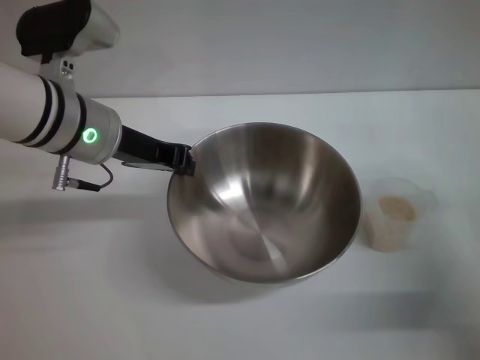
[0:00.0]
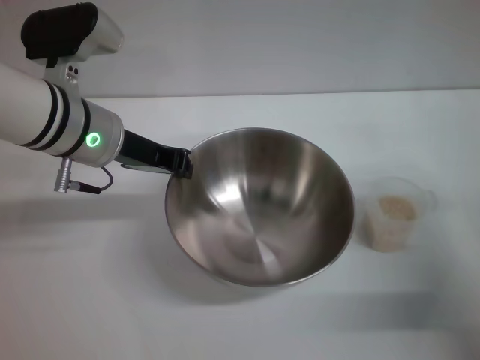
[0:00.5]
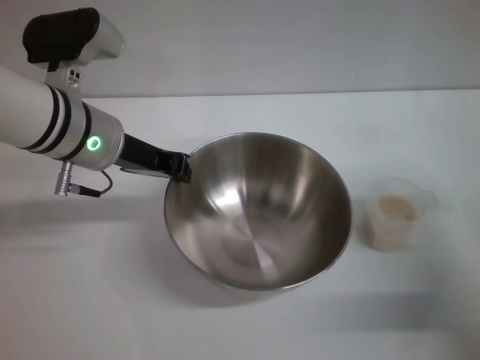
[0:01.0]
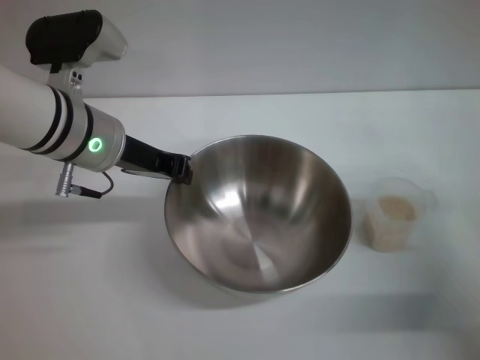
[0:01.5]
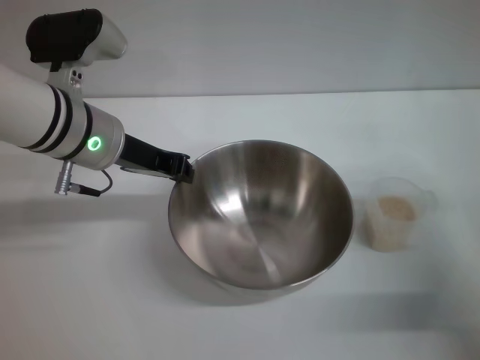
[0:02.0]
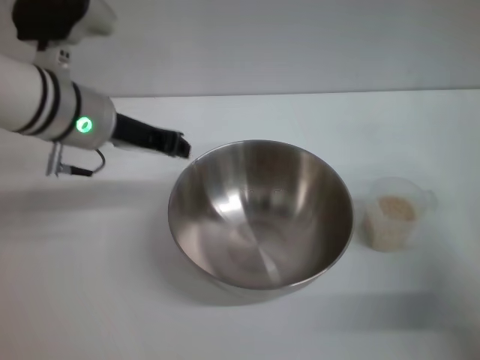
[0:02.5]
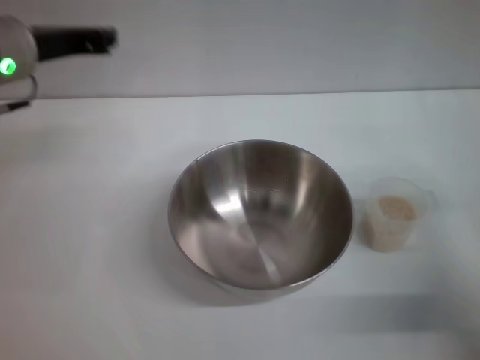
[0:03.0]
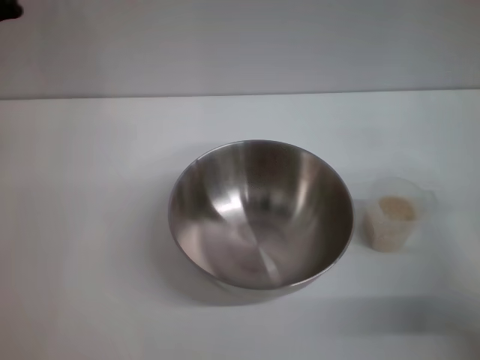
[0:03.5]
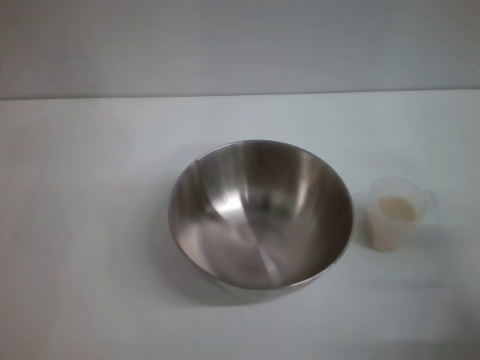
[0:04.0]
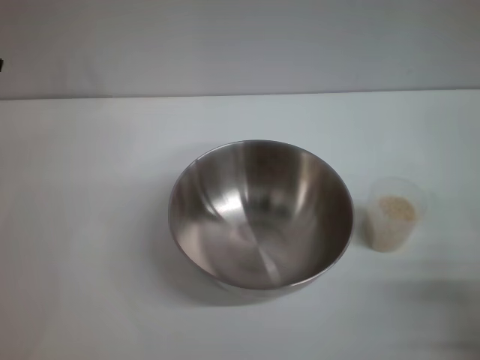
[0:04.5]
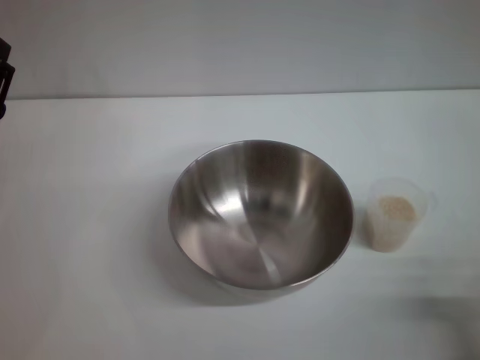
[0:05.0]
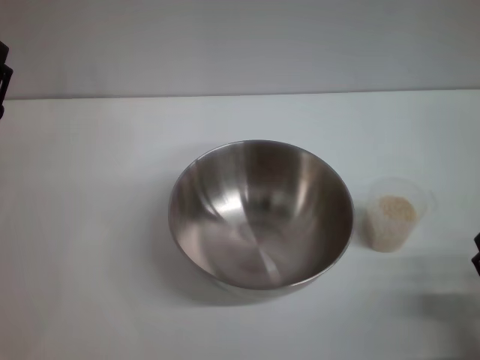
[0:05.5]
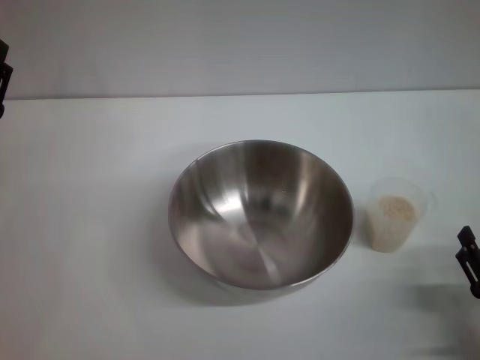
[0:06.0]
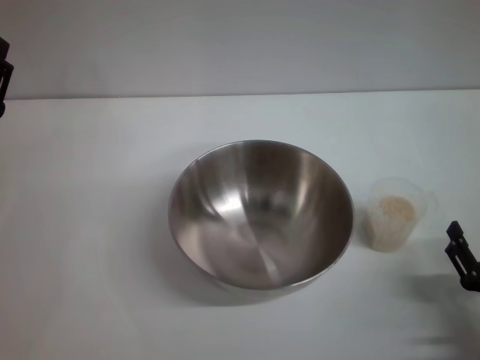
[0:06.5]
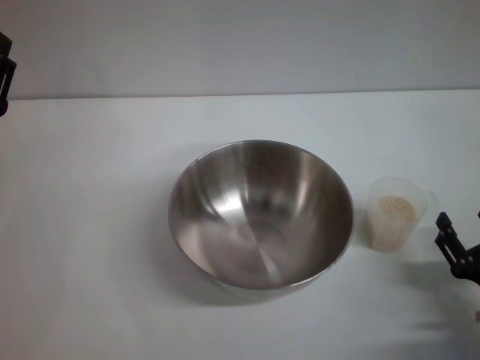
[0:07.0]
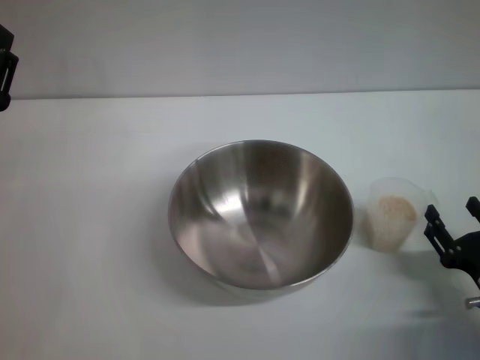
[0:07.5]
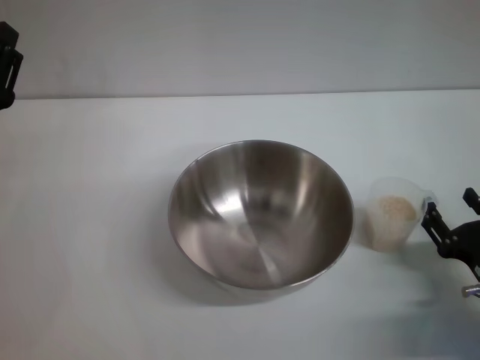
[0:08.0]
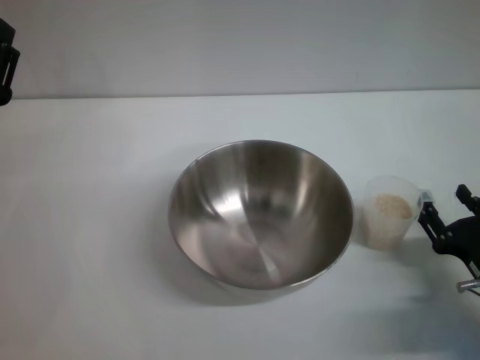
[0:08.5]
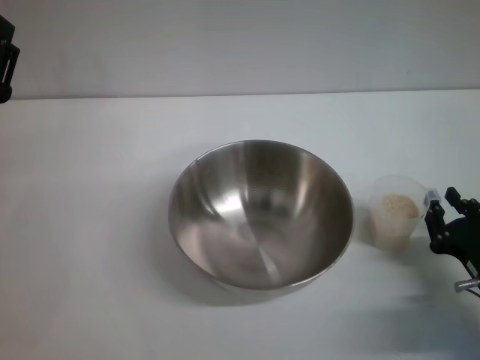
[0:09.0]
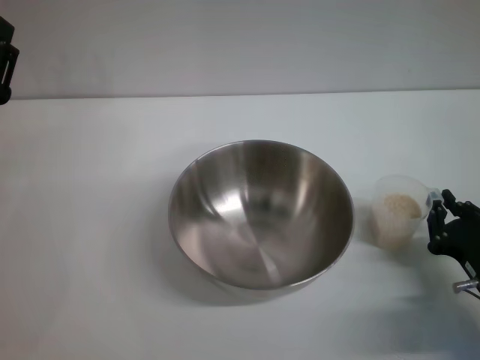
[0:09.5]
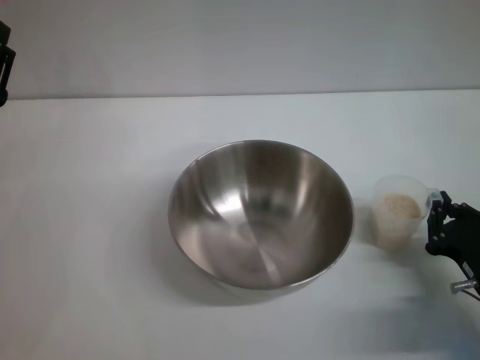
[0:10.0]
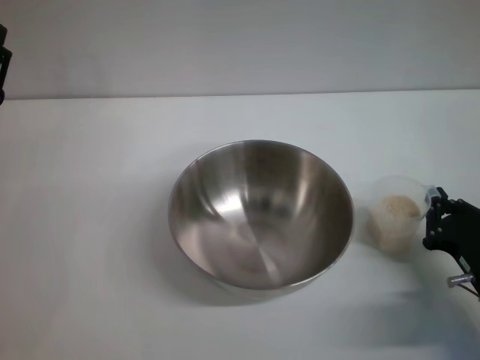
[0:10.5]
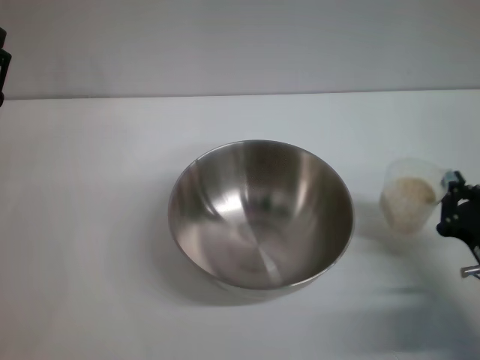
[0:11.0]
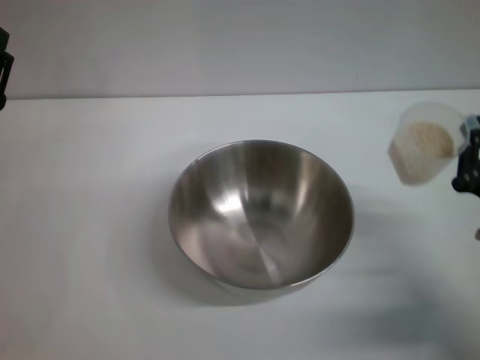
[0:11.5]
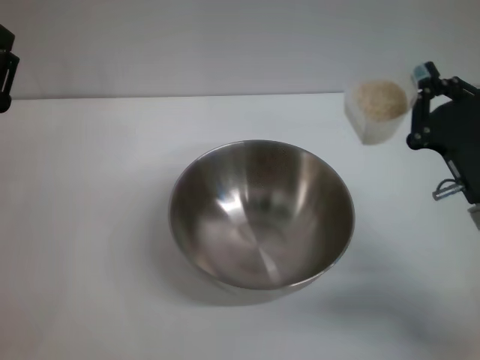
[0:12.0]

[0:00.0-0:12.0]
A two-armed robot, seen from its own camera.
Task of the whole recording: Place the bowl in the middle of the table with one hand and pour the rice from the grain cup into it with the other hand.
Step, 0:00.0 to 0:02.5: Place the bowl in the center of view with the left gripper.
Step, 0:03.0 to 0:11.5: Pick up the cup with rice in it with the right gripper.
0:00.0 to 0:02.0: The two grippers keep their place.
0:02.0 to 0:04.0: The left gripper shifts roughly 15 cm to the left and backward. Meanwhile the right gripper goes about 5 cm backward.
0:04.0 to 0:06.0: The right gripper shifts roughly 10 cm downward and backward.
0:06.0 to 0:08.0: The right gripper shifts about 5 cm forward.
0:08.0 to 0:10.0: The right gripper closes its fingers.
0:10.0 to 0:12.0: The right gripper heads upward and forward, covering approximately 10 cm.

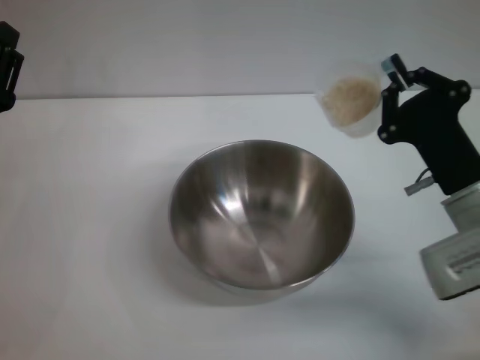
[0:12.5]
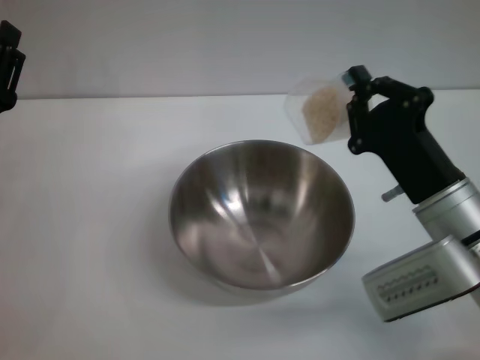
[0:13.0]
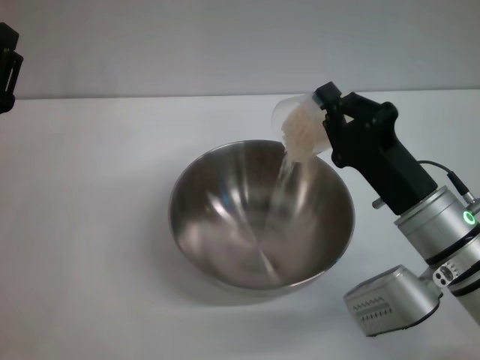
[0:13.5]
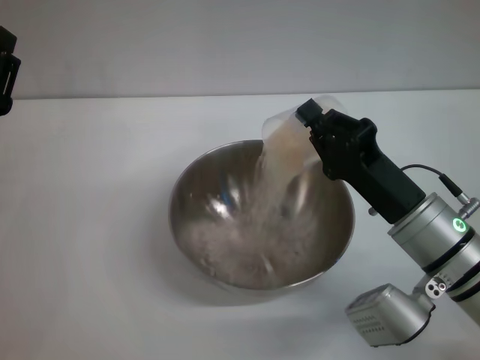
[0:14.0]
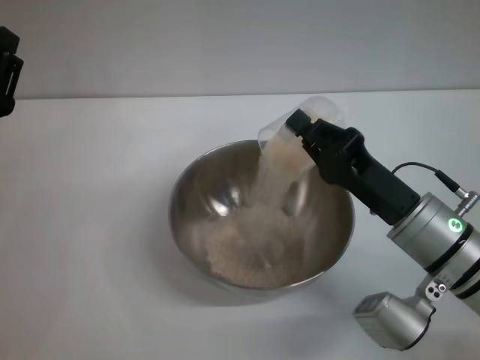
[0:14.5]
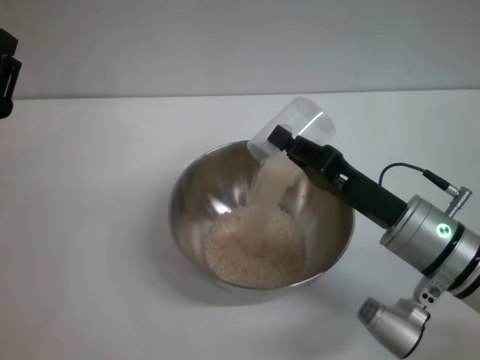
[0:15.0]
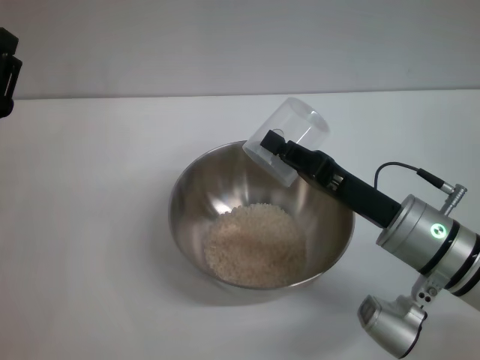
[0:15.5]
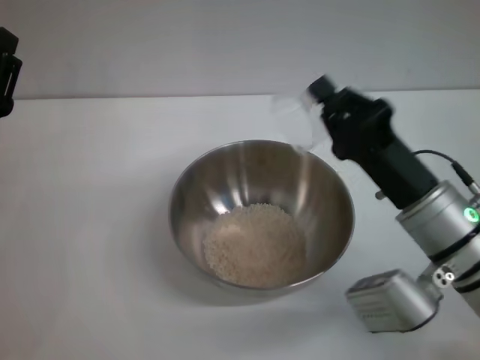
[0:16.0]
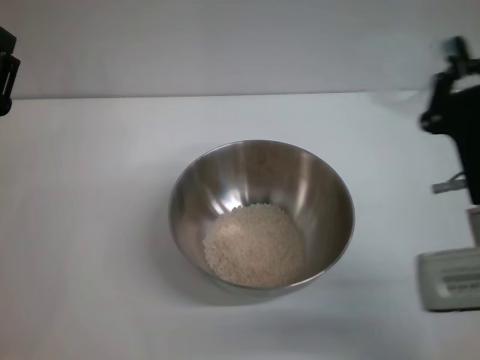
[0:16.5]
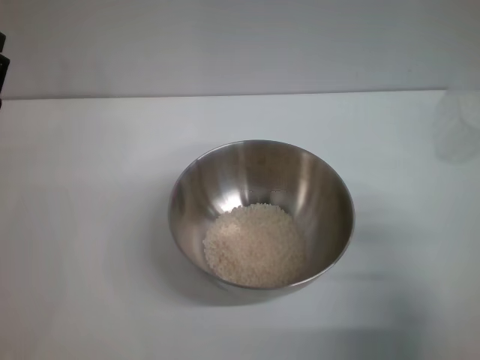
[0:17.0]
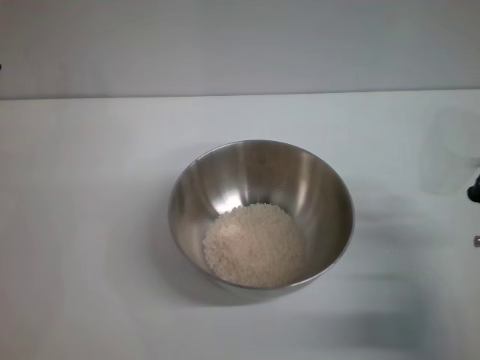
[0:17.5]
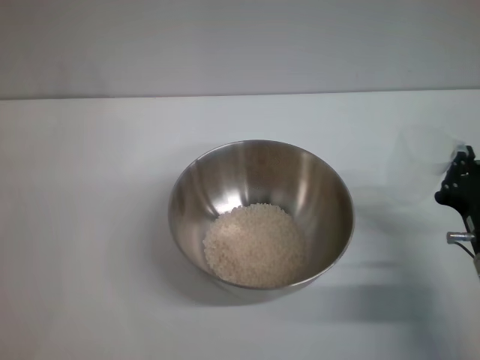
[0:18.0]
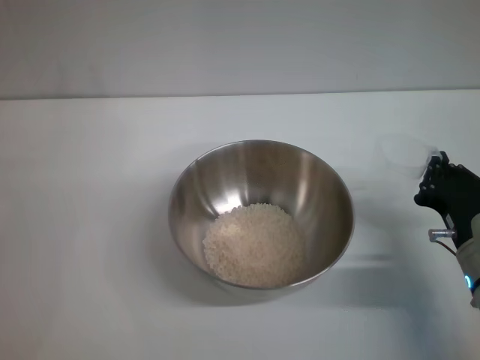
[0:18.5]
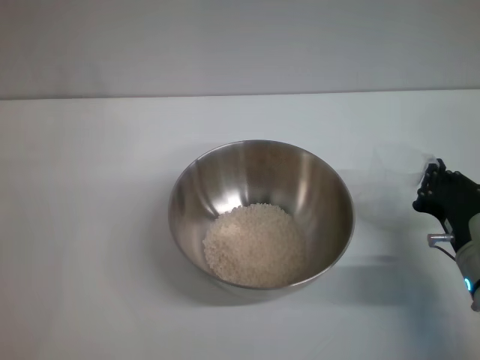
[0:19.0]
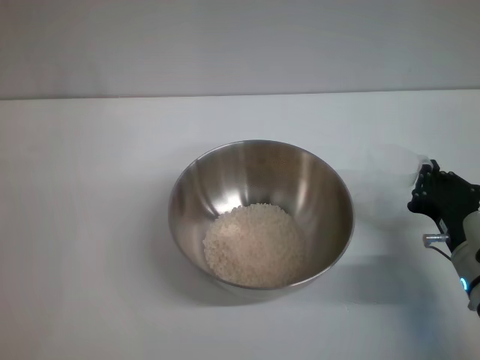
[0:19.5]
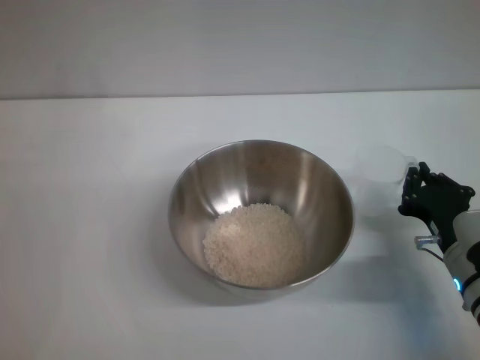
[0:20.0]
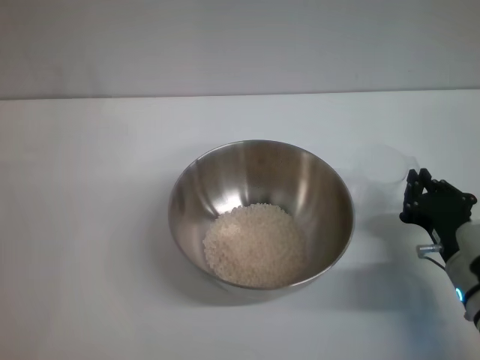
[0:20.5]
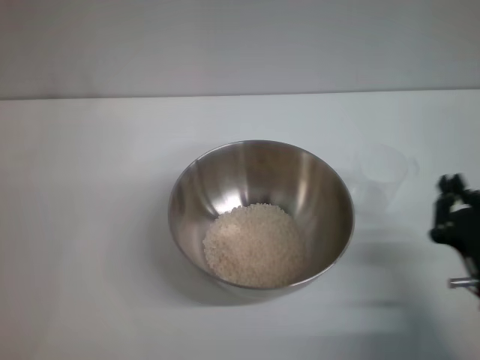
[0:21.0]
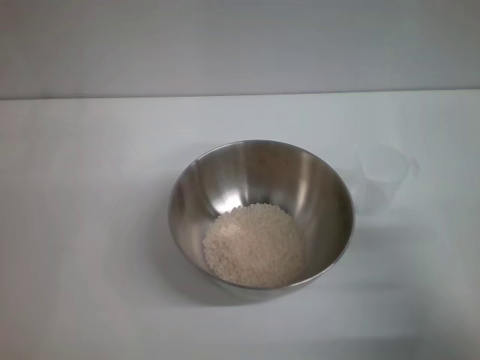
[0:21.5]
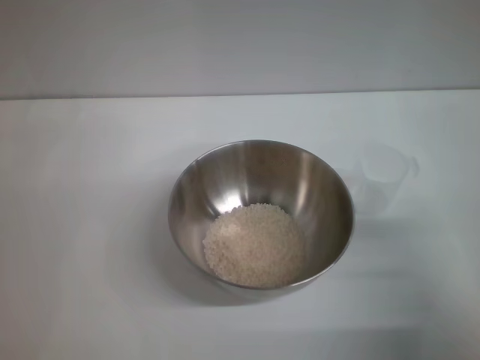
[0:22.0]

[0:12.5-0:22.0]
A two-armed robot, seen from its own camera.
Task of the whole recording: Place the bowl in the middle of the table with one hand and pour the rice from the grain cup into it with the other hand.
Step, 0:12.5 to 0:15.5: Pour the rice from the cup into the bowl with the right gripper.
Step, 0:16.0 to 0:20.5: Place the cup on the table with the right gripper.
0:16.5 to 0:18.0: The right gripper heads downward, covering roughly 5 cm.
0:18.0 to 0:20.0: The grippers move only a little.
0:20.0 to 0:22.0: The right gripper shifts approximately 5 cm upward, and opens its fingers.
